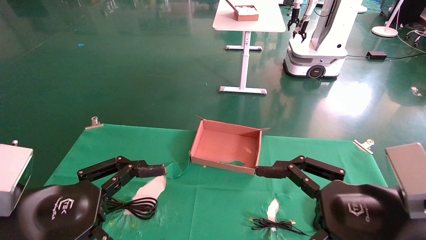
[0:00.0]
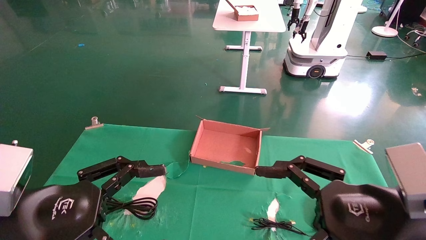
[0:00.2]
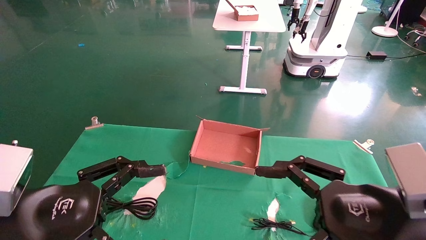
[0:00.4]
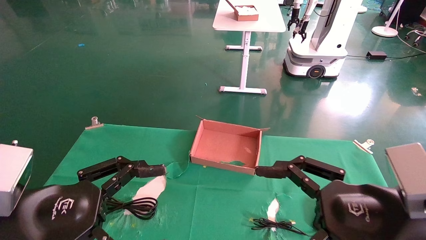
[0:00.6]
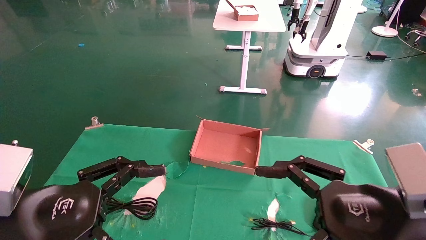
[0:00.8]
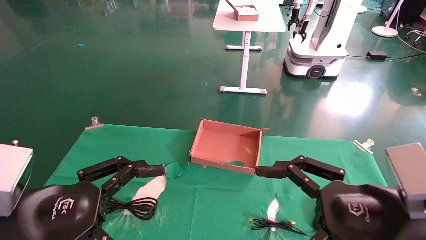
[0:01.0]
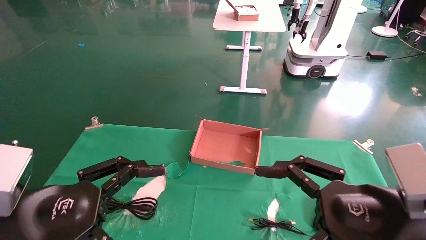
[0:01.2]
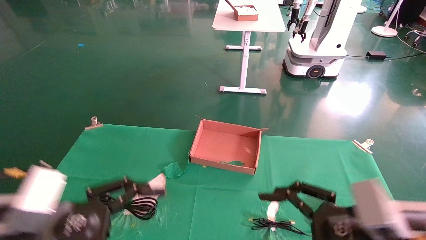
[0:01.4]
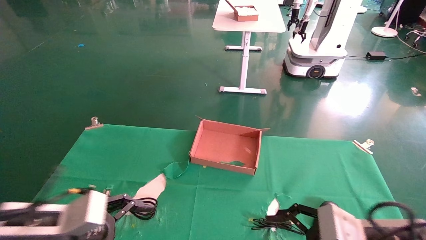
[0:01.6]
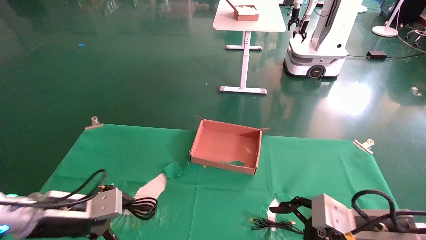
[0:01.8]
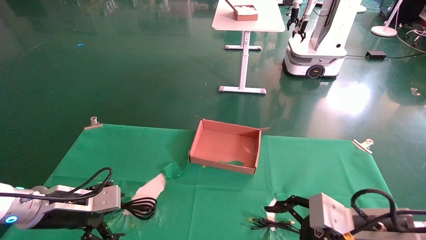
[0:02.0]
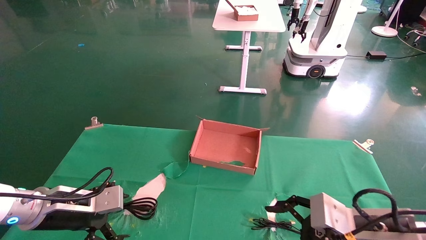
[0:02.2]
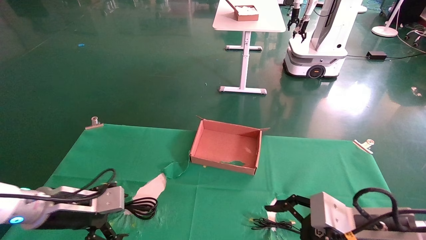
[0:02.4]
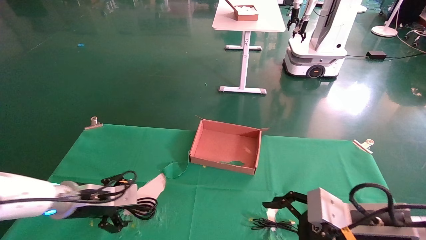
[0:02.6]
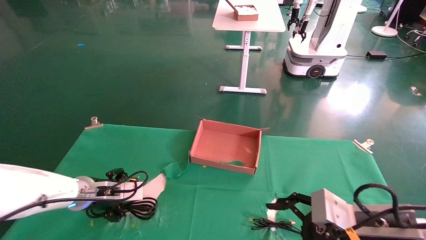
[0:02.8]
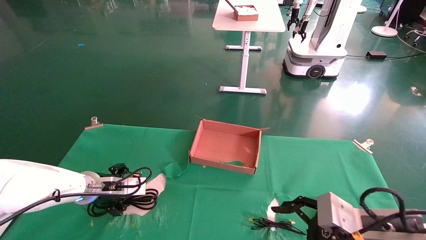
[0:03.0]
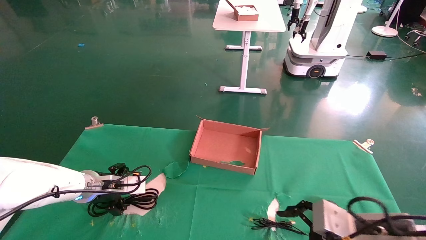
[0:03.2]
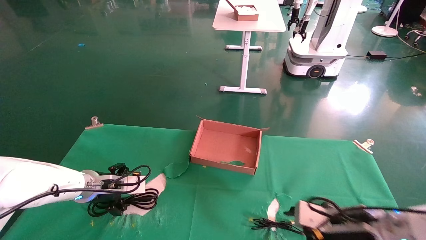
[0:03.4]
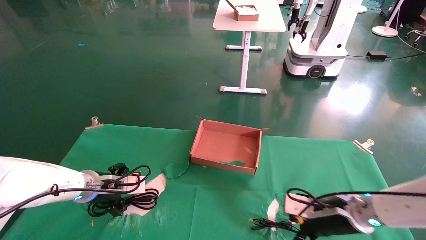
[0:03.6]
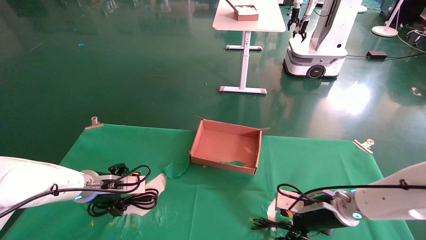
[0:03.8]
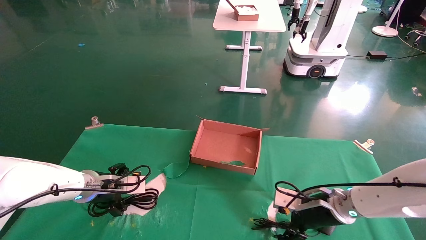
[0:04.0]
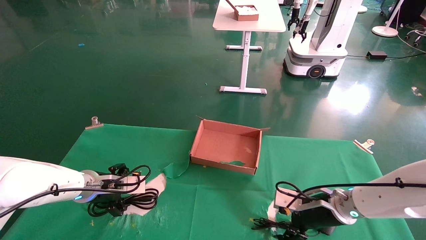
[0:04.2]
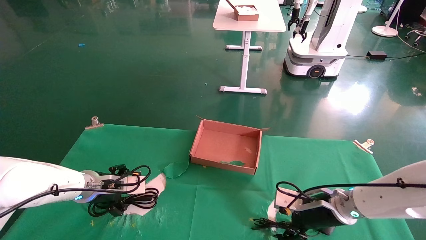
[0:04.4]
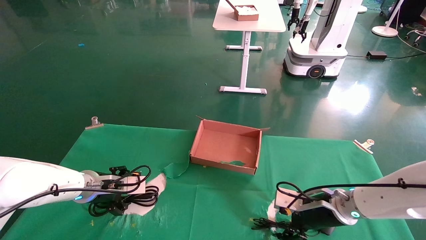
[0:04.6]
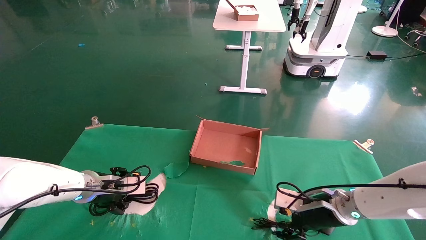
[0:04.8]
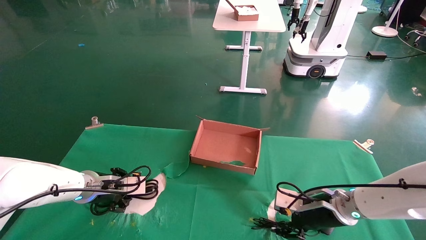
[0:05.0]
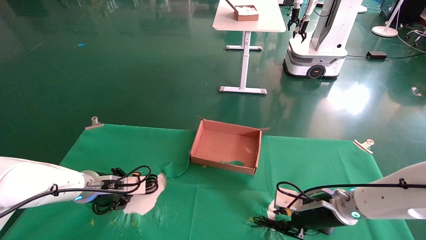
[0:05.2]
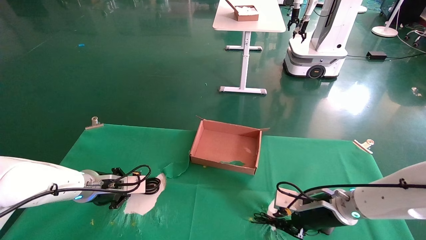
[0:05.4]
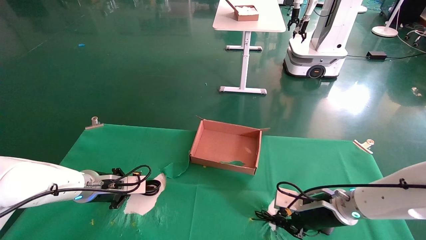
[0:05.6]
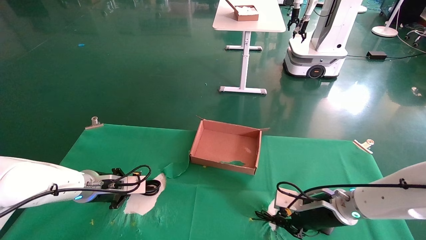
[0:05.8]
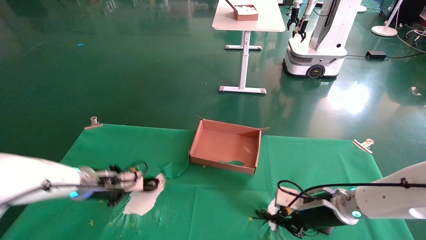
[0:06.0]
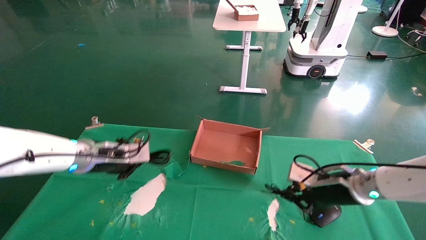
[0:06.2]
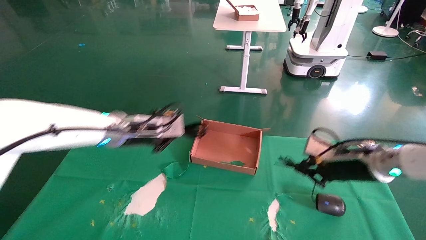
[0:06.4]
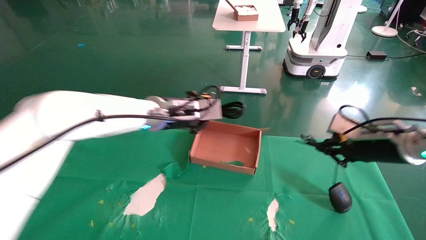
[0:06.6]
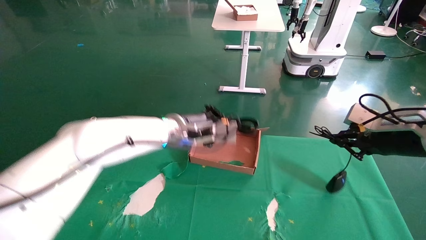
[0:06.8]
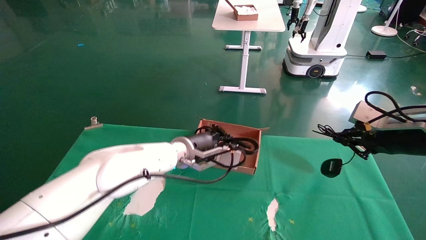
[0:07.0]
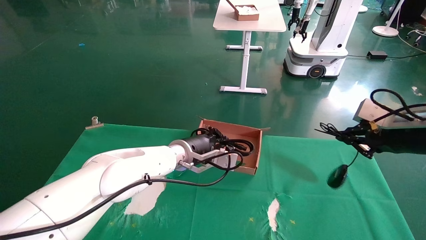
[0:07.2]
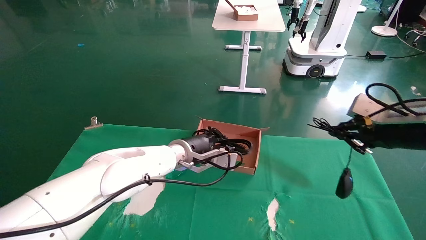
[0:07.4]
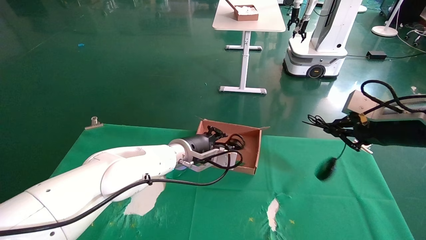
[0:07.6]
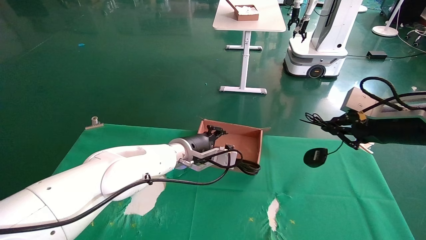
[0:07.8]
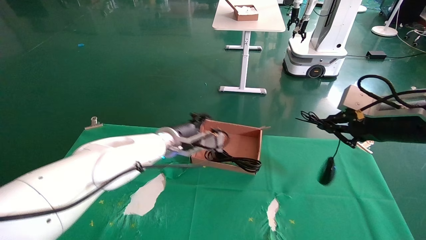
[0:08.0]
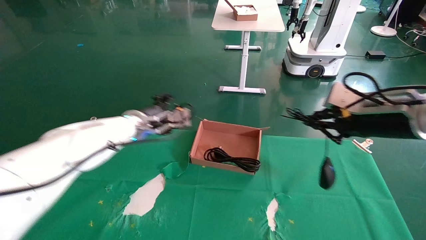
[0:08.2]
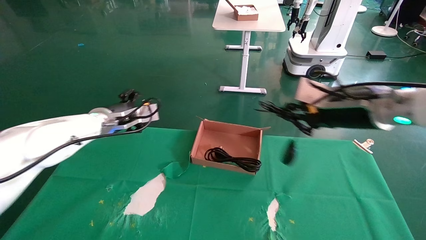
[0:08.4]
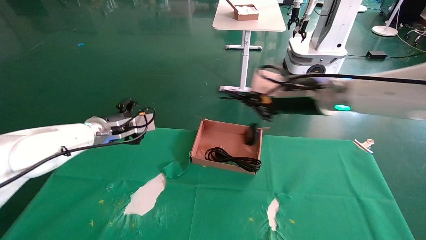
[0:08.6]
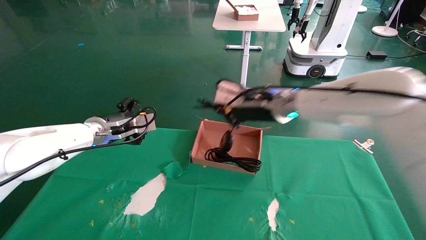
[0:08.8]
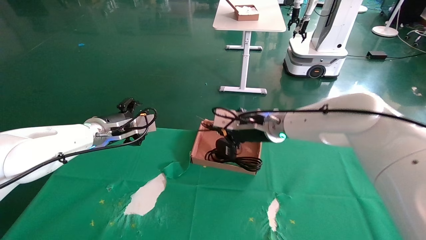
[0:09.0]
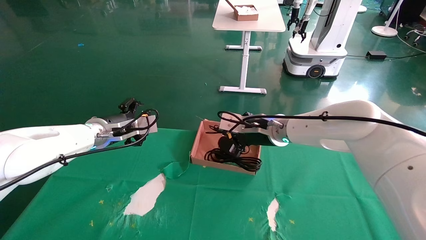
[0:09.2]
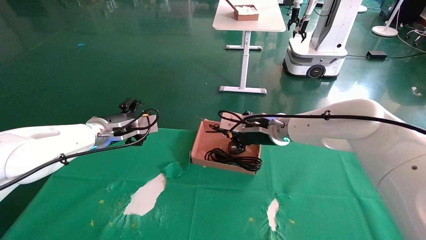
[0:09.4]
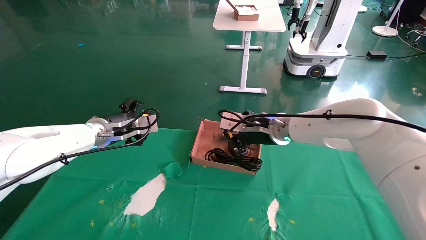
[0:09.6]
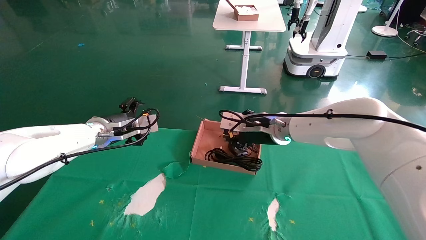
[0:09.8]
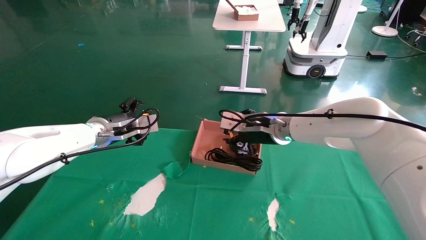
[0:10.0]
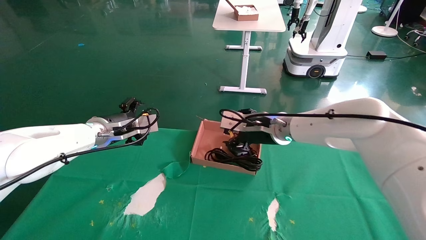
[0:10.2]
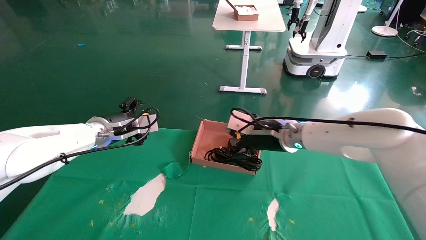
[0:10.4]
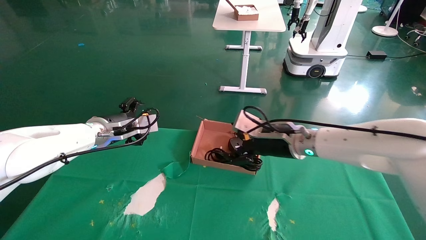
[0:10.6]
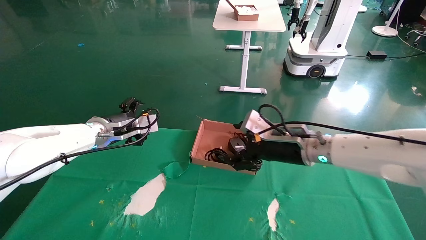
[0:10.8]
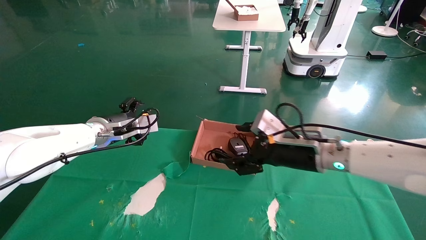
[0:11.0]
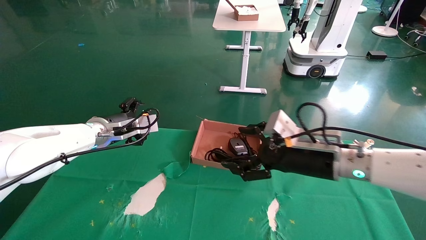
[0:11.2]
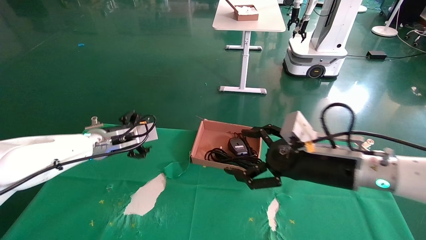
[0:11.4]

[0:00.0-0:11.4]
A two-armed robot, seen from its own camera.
Step, 0:01.6 to 0:05.6: Grab and lift both the mouse and power cord from the accessory packaging area at the same time.
Step, 0:05.8 to 0:11.0: Place the mouse and power cord into the box.
0:00.0 to 0:01.4: The left gripper shifts by roughly 5 cm. The right gripper moves roughly 5 cm.
0:01.4 to 0:02.8: The left gripper moves forward, roughly 20 cm.
0:02.8 to 0:04.2: The right gripper is displaced forward by roughly 15 cm.
0:04.2 to 0:05.6: The right gripper closes. Meanwhile the left gripper closes its fingers.
0:05.6 to 0:07.2: The right gripper moves upward and to the right, roughly 20 cm. Meanwhile the left gripper travels to the right by about 20 cm.
0:07.2 to 0:08.6: The two grippers go roughly 20 cm to the left. The left gripper opens its fingers.
0:08.6 to 0:10.0: The right gripper goes roughly 10 cm downward, to the left and forward.
0:10.0 to 0:11.4: The right gripper goes about 15 cm backward and to the right, and opens its fingers.

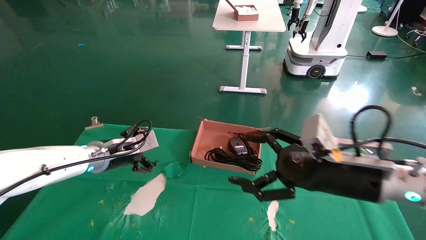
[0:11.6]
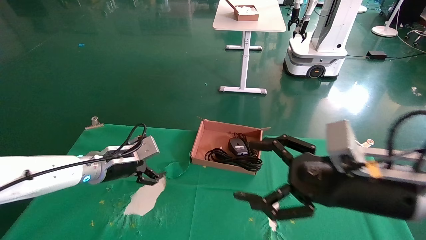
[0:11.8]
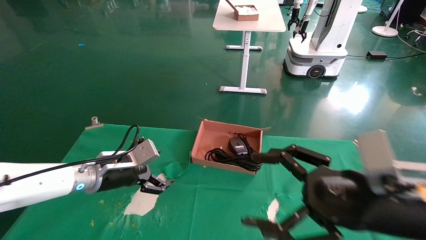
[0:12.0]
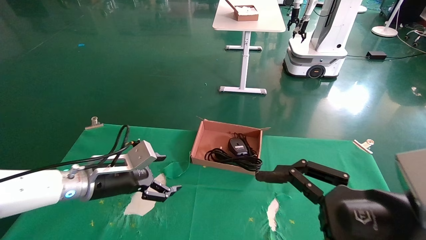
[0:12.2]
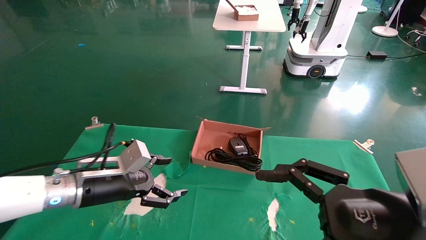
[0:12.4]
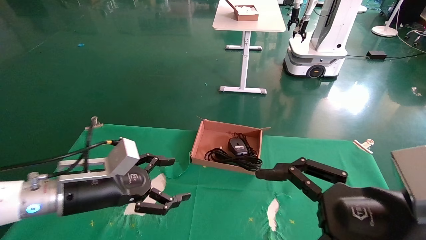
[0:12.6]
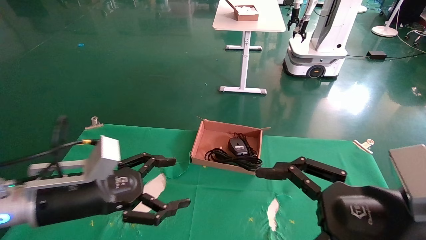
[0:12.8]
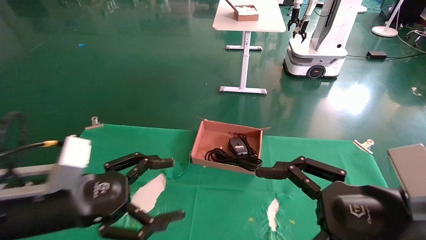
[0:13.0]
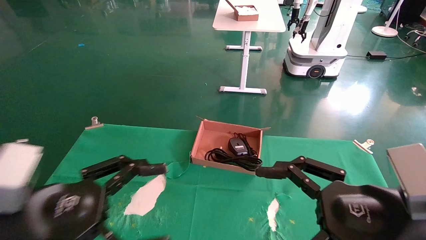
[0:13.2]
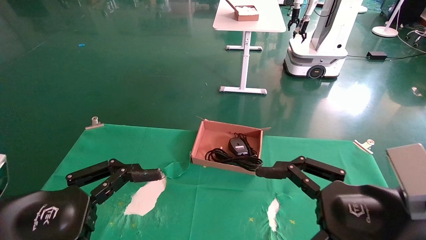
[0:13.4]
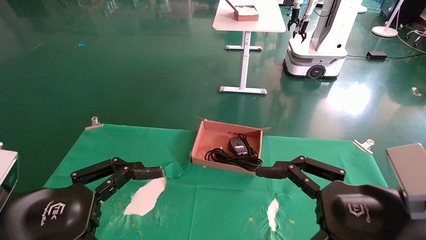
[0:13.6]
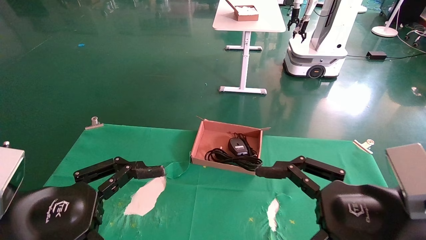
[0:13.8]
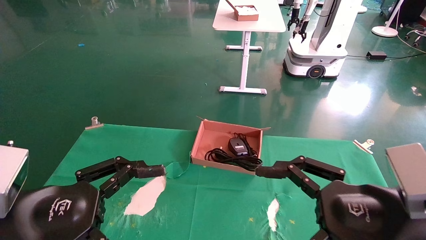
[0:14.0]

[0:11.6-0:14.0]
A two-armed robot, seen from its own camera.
0:11.6 to 0:12.8: The left gripper travels backward by roughly 20 cm, while the right gripper shifts about 10 cm backward.
0:12.8 to 0:14.0: The left gripper moves backward, about 10 cm.

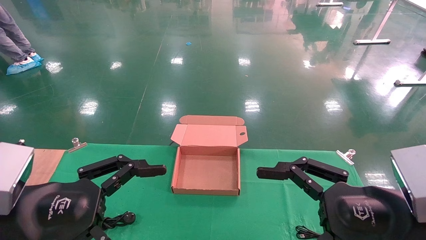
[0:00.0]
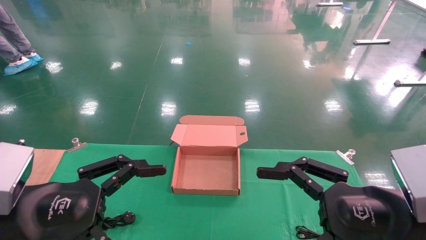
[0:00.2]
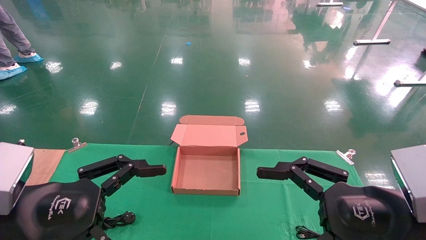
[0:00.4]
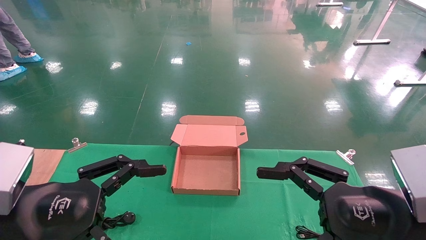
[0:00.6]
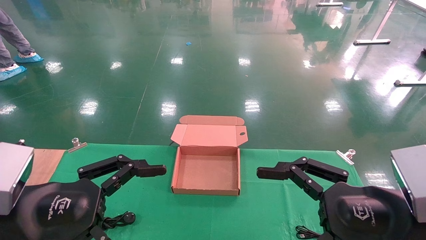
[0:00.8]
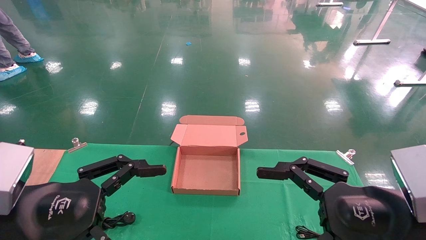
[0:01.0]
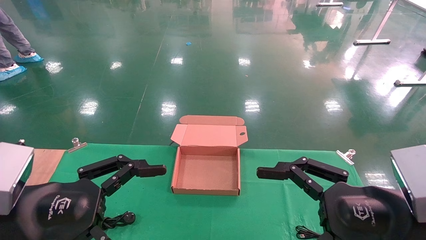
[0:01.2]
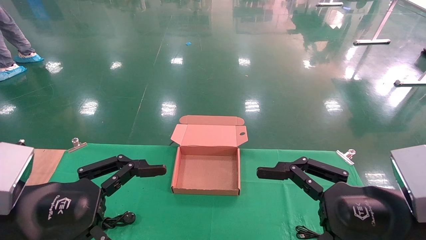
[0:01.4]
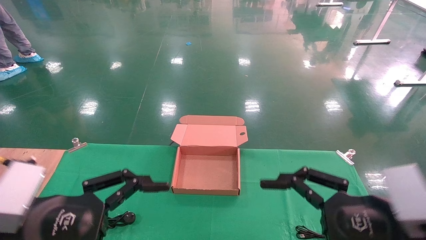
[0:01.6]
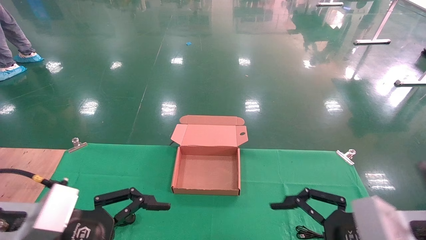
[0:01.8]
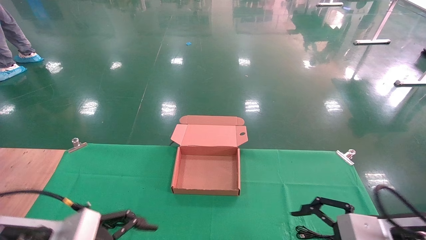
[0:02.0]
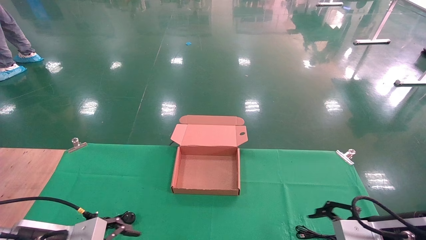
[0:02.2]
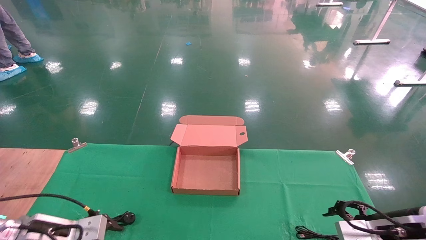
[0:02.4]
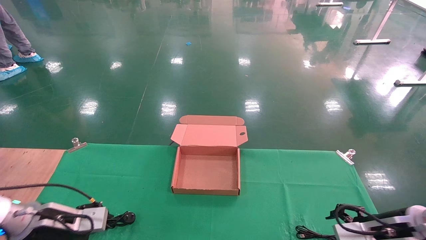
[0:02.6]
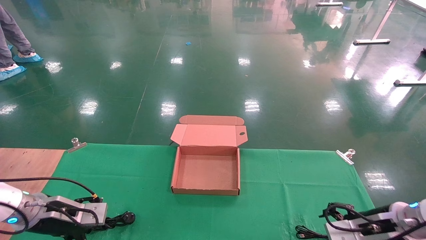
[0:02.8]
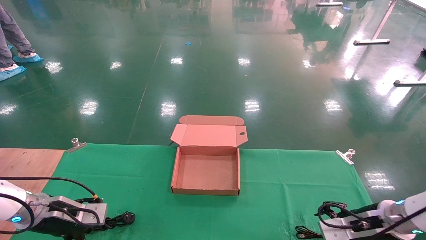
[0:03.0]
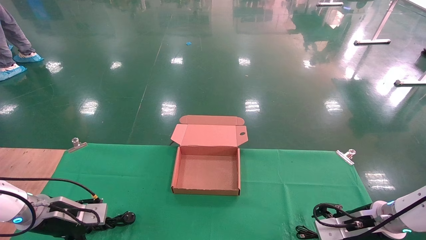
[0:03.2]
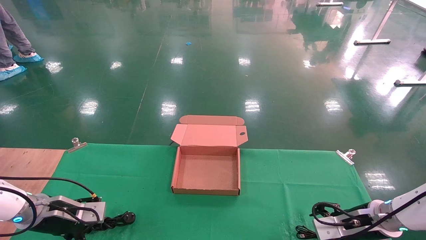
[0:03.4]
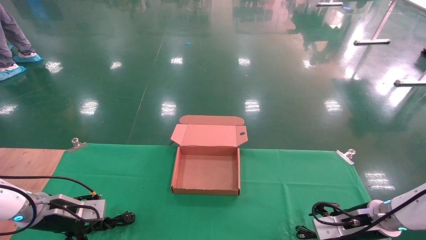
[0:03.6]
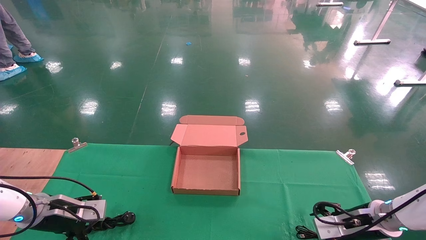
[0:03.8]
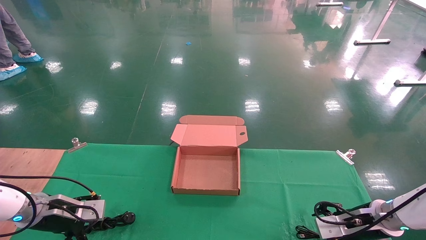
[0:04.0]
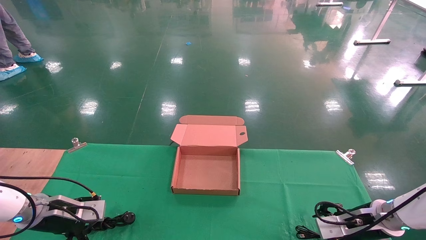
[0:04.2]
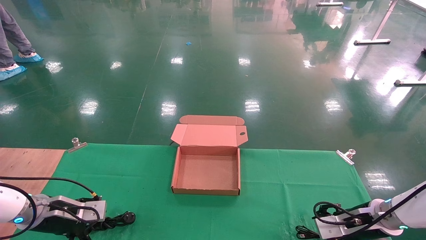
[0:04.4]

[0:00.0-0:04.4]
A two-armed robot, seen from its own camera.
0:00.0 to 0:01.4: Neither gripper changes place.
0:01.4 to 0:03.0: The right gripper is displaced forward, downward and to the right by about 25 cm; the left gripper is displaced forward, downward and to the left by approximately 25 cm.
0:03.0 to 0:04.4: The grippers stay close to where they were, moving slightly.
